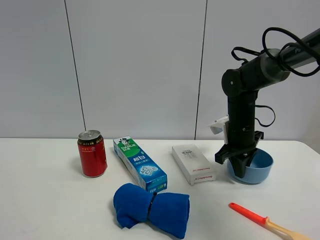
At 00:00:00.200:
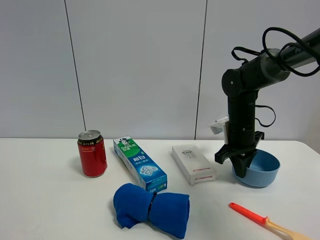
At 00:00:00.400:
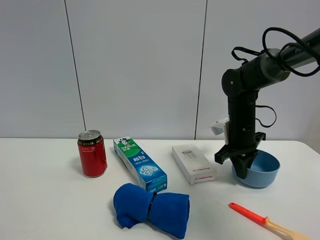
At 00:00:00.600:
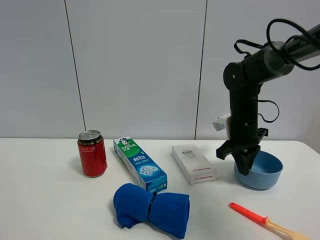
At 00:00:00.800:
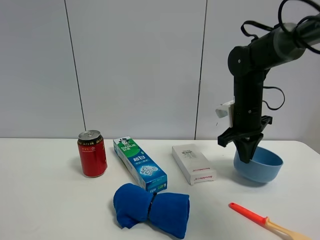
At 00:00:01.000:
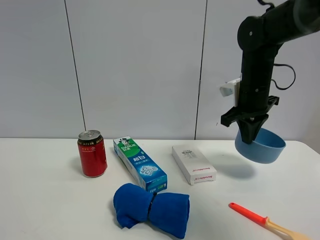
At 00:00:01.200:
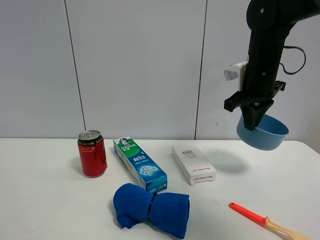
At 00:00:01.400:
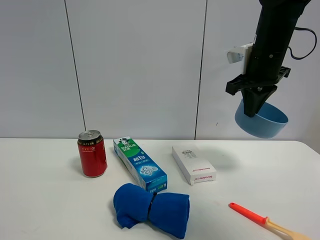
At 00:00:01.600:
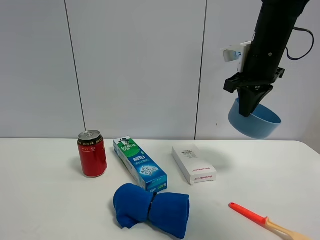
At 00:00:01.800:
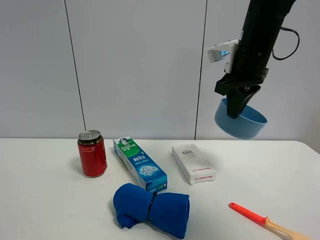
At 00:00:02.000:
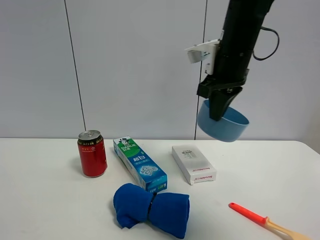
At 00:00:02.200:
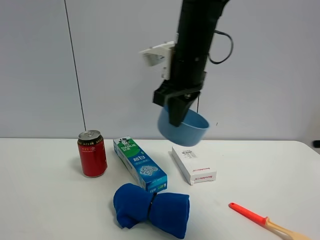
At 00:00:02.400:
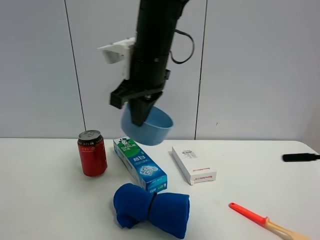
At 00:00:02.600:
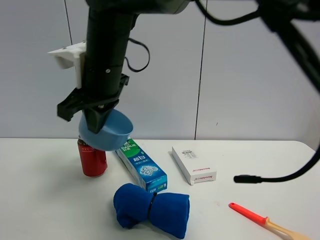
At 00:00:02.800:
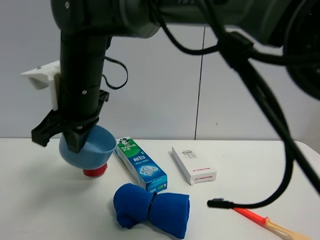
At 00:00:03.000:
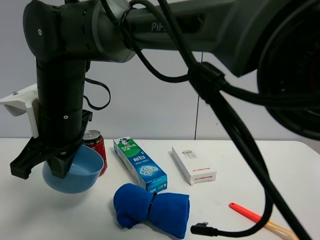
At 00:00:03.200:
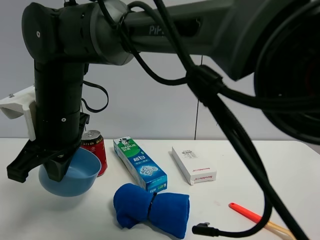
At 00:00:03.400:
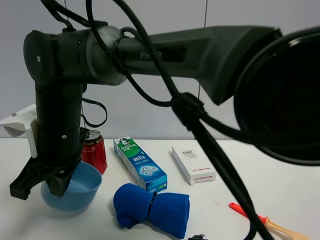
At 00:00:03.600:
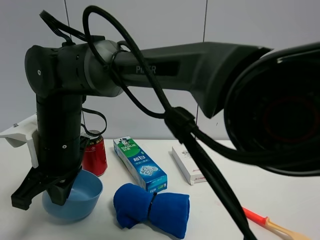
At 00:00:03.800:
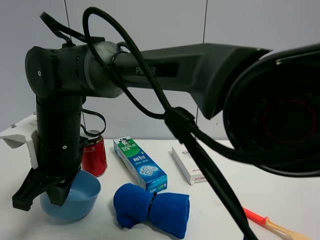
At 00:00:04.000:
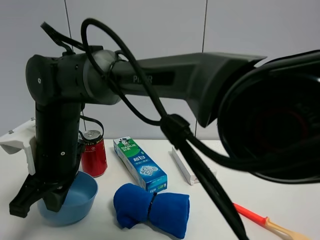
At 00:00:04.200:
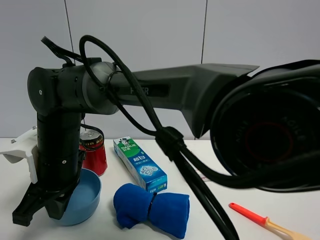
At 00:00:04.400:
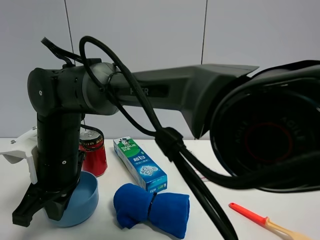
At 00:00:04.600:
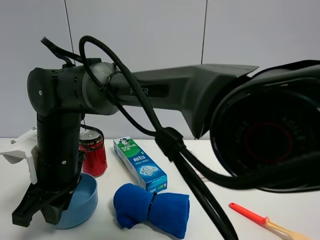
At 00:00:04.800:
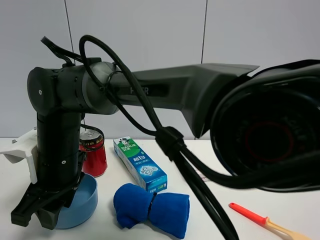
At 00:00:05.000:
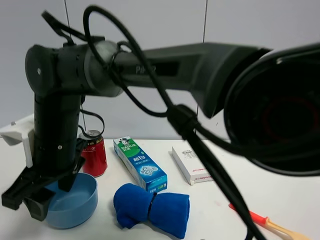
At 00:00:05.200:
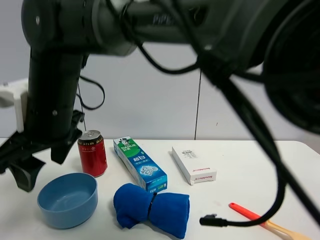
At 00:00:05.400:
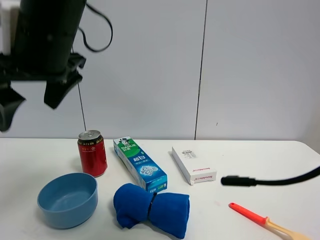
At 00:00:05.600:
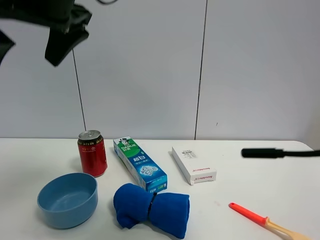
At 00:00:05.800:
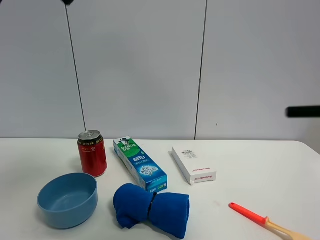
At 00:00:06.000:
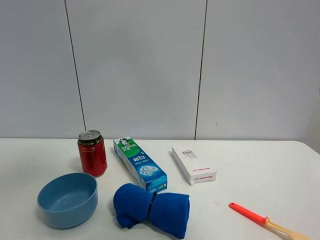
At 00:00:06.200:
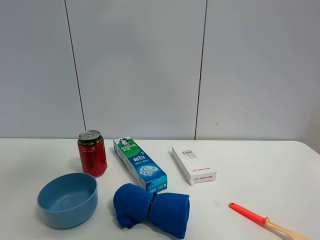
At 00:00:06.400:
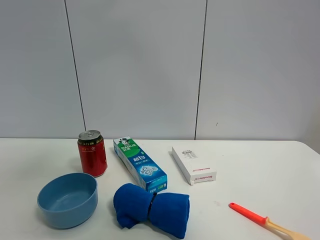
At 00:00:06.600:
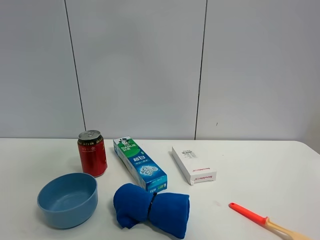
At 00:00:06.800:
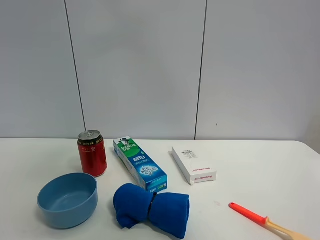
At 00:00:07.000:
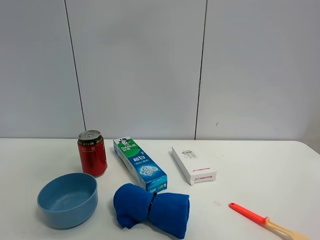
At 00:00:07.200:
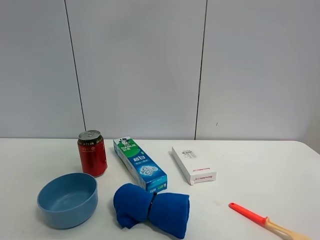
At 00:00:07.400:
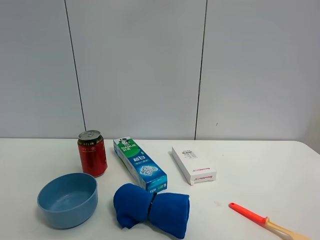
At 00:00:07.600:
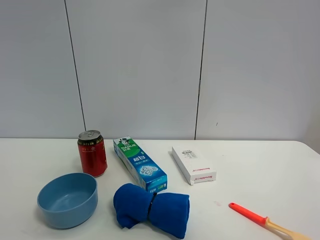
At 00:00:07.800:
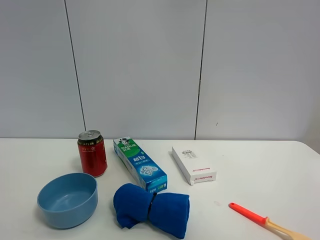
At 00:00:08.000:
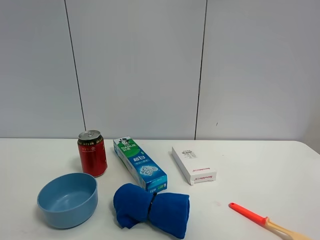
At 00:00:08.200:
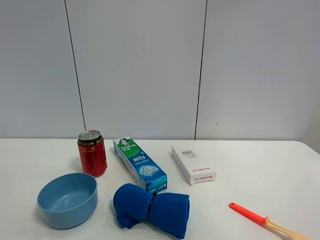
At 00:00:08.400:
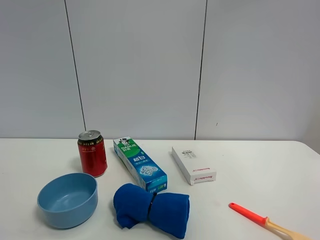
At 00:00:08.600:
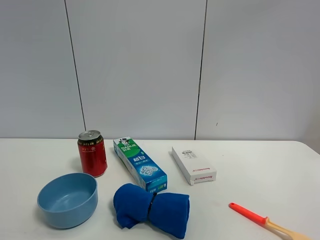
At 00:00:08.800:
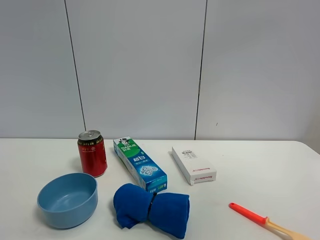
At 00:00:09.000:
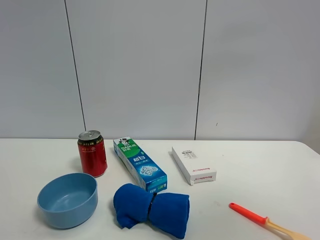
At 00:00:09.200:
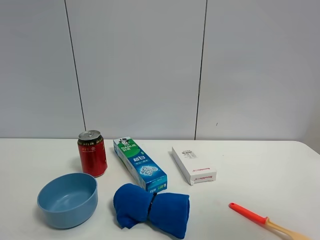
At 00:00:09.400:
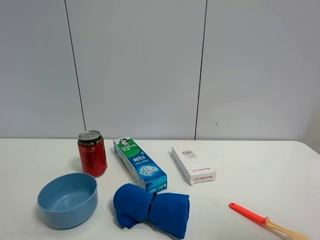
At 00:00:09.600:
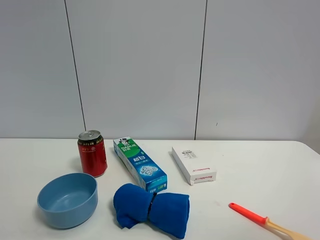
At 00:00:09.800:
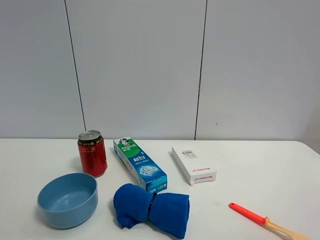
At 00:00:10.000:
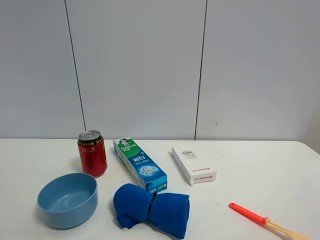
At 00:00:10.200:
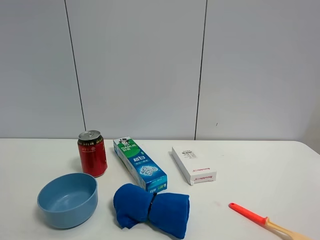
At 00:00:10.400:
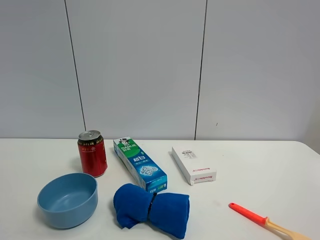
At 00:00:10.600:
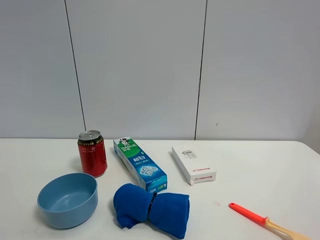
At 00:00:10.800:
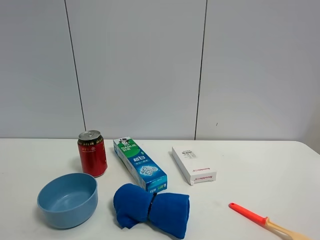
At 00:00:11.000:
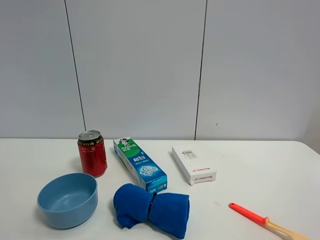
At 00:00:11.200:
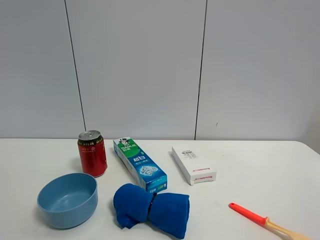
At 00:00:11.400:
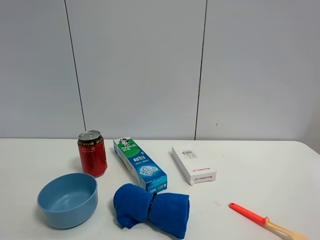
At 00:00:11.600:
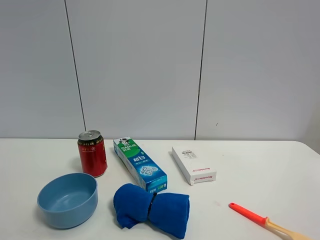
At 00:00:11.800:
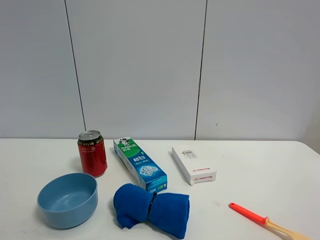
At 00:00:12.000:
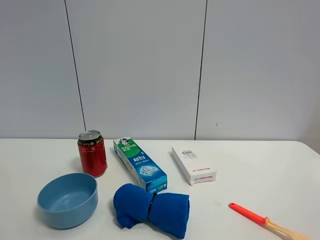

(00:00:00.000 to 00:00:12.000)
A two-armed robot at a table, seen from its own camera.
Task of the whole recording: the gripper move the object.
Step, 00:00:00.600 - 00:00:04.800: Place the blue bowl on the table with the right gripper.
00:00:00.000 - 00:00:01.600: The right gripper moves upward, roughly 15 cm.
00:00:01.600 - 00:00:03.000: The right gripper goes about 35 cm to the left.
00:00:03.000 - 00:00:04.400: The right gripper is displaced downward by roughly 5 cm.
00:00:04.400 - 00:00:06.000: The right gripper goes some 35 cm upward, and opens.
00:00:07.600 - 00:00:09.000: The right gripper shifts about 25 cm to the right and backward.
00:00:09.000 - 00:00:10.400: The right gripper goes approximately 20 cm downward.

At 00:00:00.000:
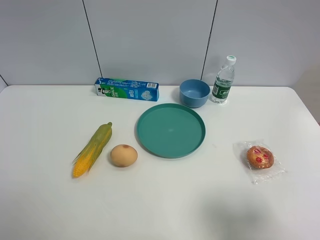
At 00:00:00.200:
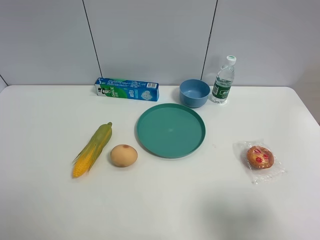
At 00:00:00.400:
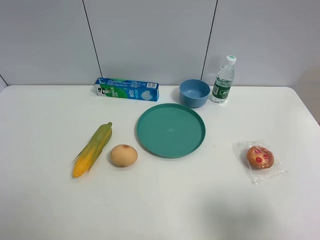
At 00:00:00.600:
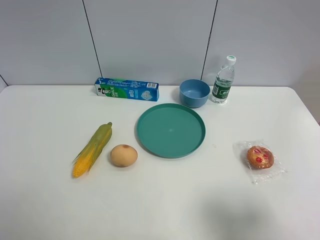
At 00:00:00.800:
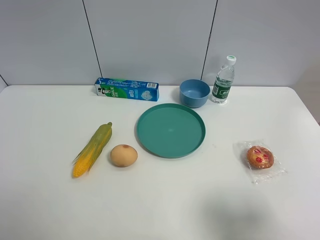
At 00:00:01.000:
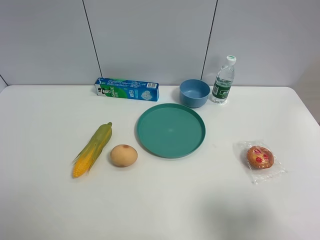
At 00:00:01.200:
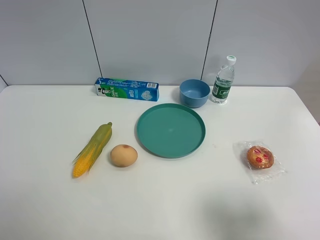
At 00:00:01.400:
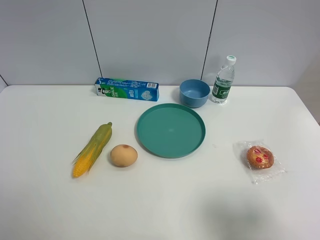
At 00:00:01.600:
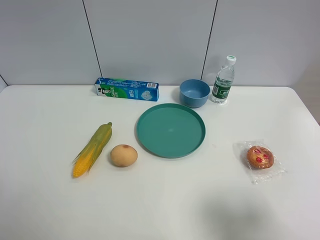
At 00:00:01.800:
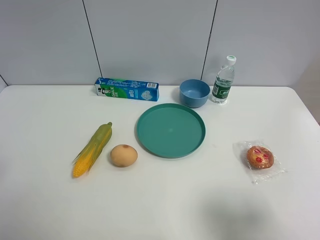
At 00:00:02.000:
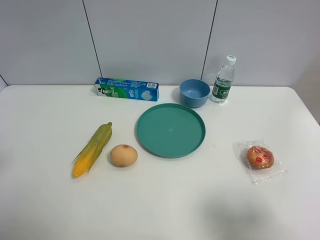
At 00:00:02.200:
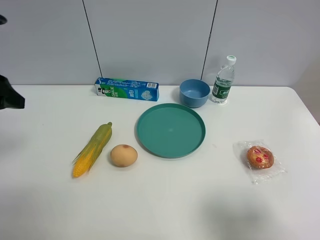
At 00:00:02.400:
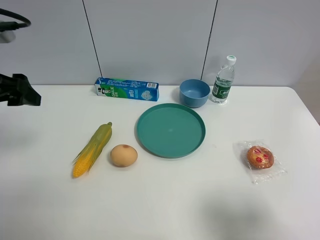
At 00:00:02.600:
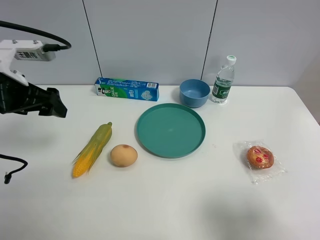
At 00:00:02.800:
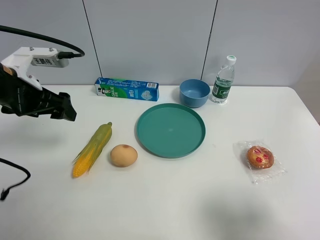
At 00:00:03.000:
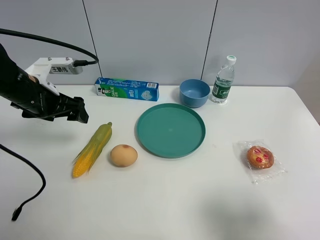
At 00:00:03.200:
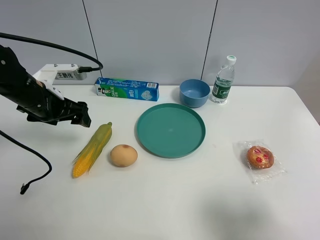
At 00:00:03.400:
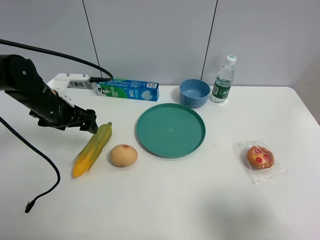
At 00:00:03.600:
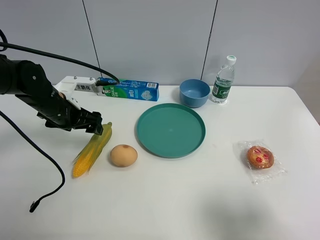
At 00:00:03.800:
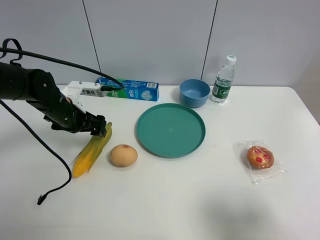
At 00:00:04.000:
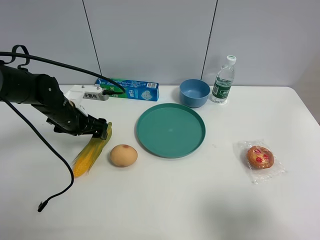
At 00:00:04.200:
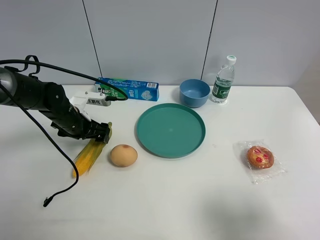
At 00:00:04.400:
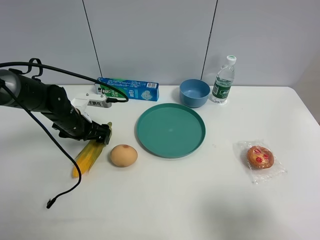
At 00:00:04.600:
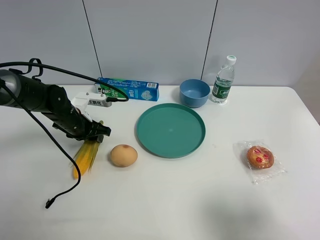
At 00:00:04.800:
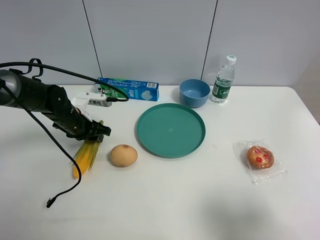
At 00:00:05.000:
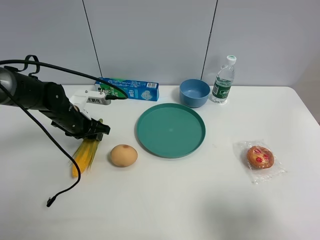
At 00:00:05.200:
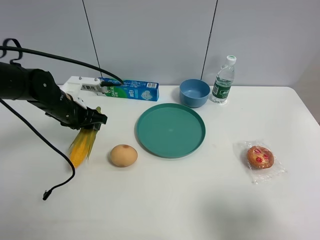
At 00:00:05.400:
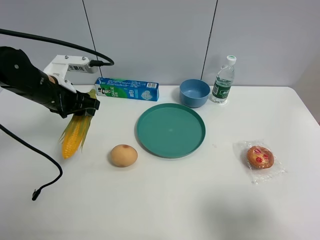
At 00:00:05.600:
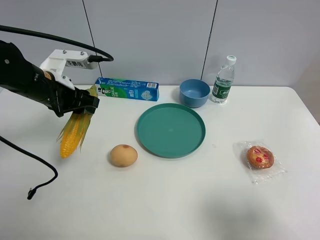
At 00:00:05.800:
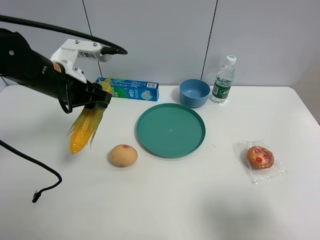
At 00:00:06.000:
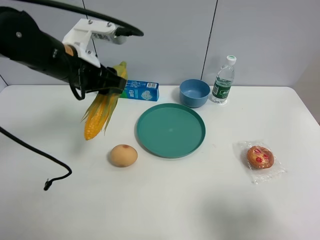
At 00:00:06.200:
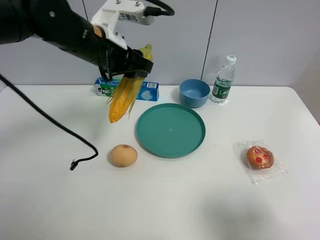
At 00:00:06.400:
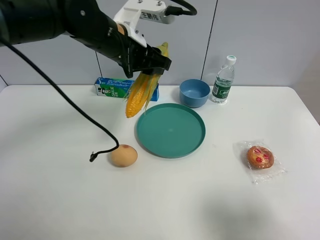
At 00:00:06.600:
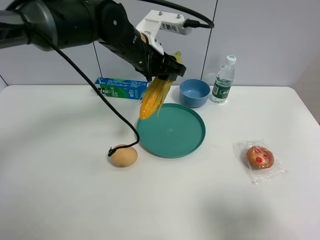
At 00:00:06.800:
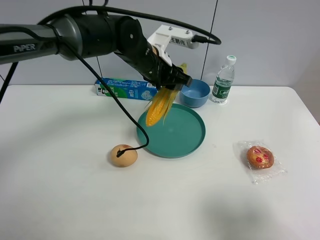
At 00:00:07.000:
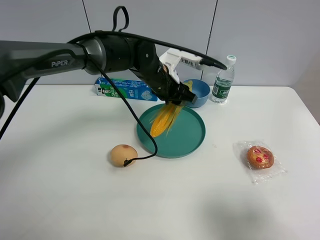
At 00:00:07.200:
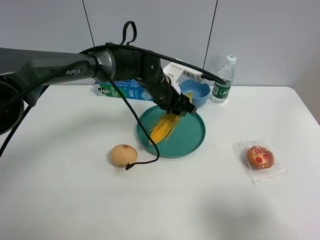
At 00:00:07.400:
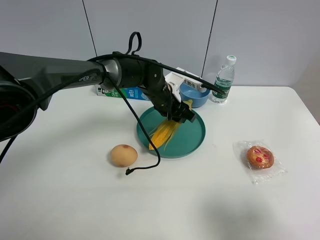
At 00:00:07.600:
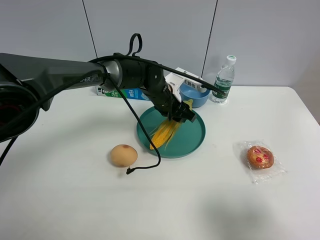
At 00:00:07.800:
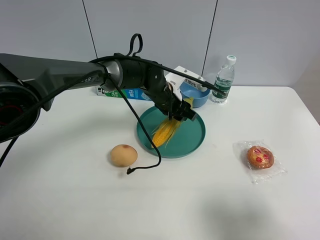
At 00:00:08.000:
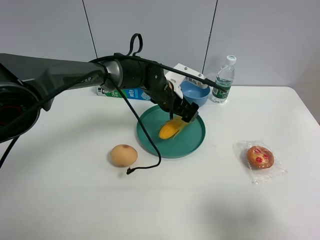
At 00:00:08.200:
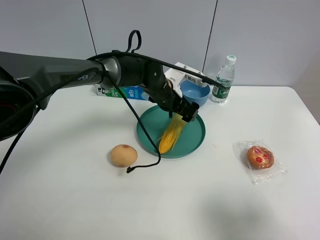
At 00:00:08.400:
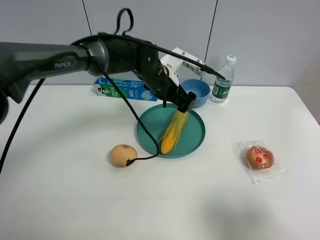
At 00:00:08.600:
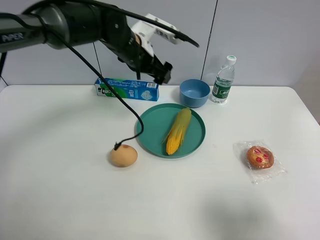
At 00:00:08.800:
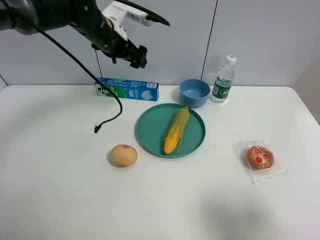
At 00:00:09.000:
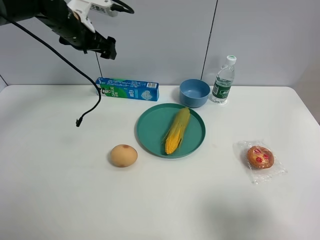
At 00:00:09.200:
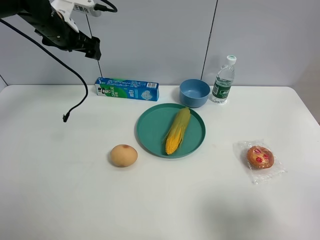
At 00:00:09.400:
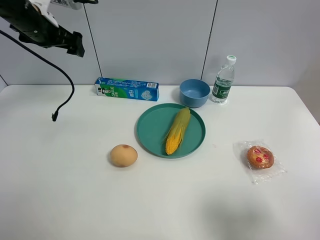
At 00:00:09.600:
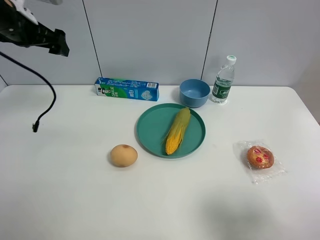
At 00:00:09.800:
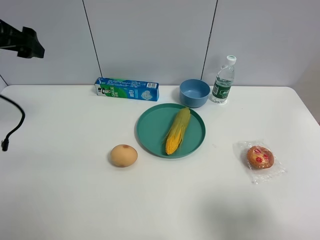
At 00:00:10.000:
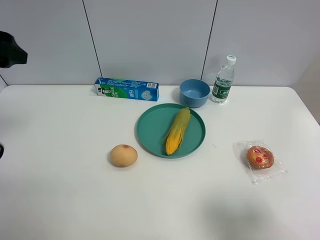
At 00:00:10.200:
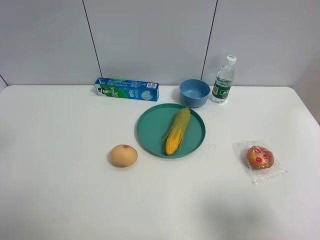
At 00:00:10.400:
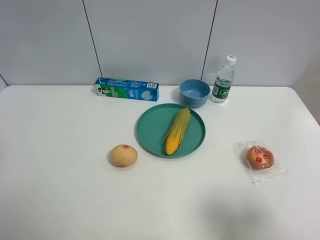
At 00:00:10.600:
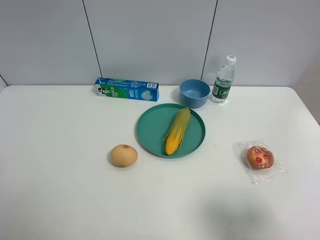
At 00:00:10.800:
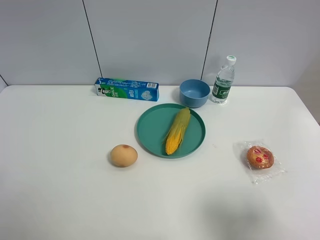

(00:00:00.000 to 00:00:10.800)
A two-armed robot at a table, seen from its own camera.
Task of the whole recording: the gripper move the object.
Step, 00:00:00.000 - 00:00:04.800: Grasp the corn with the left gripper.
Step, 00:00:05.000 - 00:00:08.400: Place the corn into the green plate with the left gripper.
00:00:01.600 - 00:00:03.000: The left gripper heads forward, covering about 25 cm.
00:00:03.000 - 00:00:04.600: The left gripper is displaced downward by some 10 cm, and closes up.
00:00:04.600 - 00:00:06.200: The left gripper heads upward and to the right, covering approximately 25 cm.
00:00:06.200 - 00:00:07.800: The left gripper goes approximately 20 cm downward and to the right, and opens up.
00:00:07.800 - 00:00:09.200: The left gripper travels to the left and upward by approximately 30 cm, and opens up.
00:00:09.200 - 00:00:10.800: The left gripper shifts some 40 cm backward.
